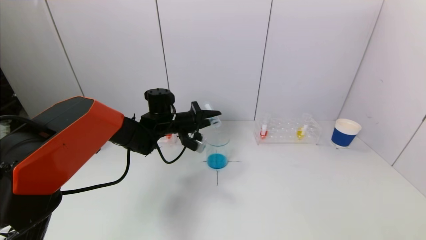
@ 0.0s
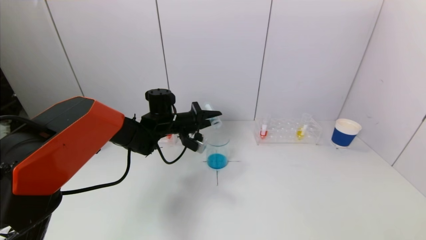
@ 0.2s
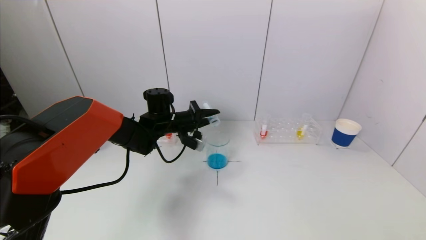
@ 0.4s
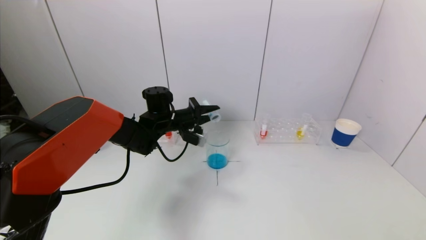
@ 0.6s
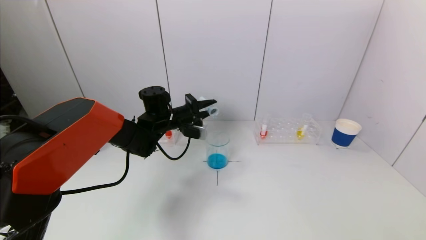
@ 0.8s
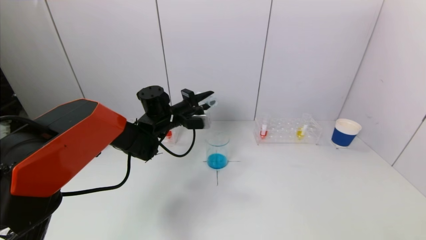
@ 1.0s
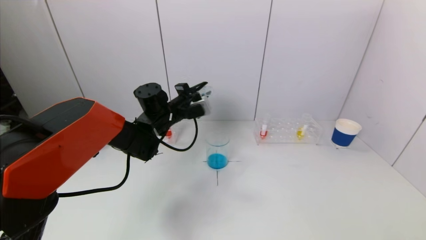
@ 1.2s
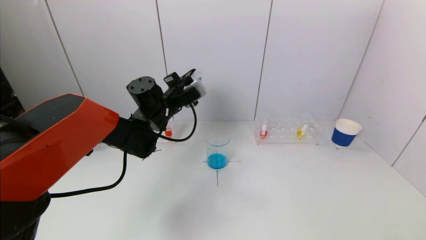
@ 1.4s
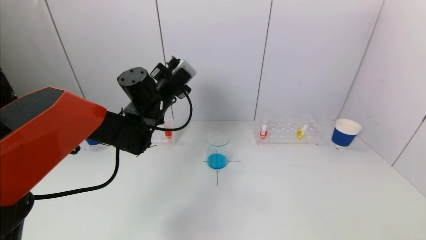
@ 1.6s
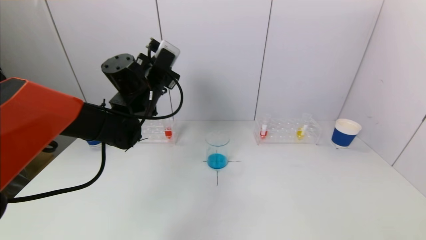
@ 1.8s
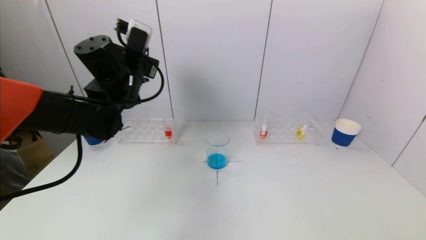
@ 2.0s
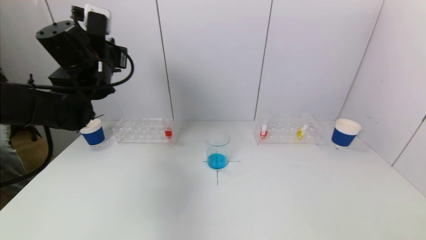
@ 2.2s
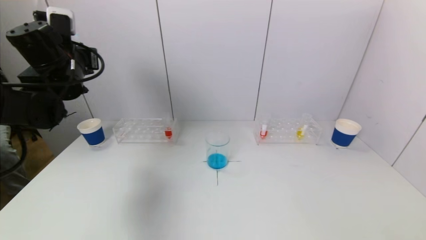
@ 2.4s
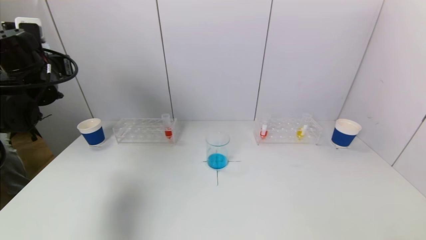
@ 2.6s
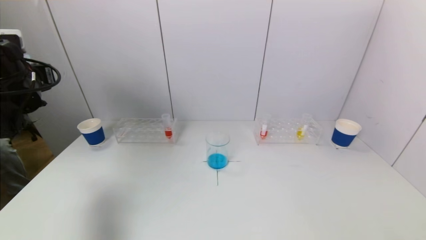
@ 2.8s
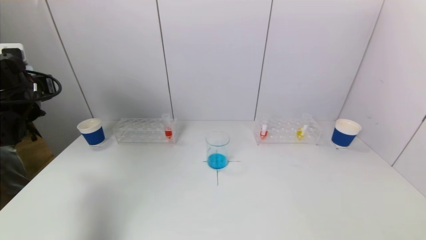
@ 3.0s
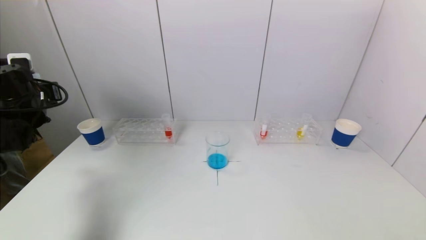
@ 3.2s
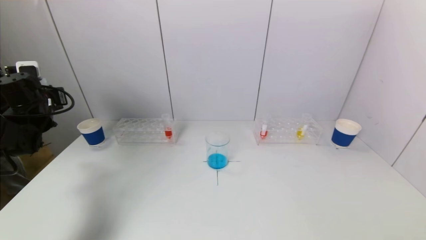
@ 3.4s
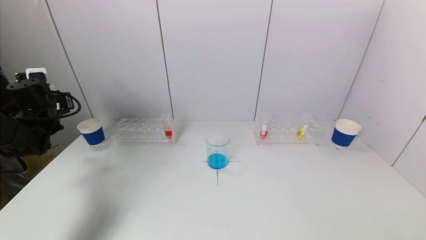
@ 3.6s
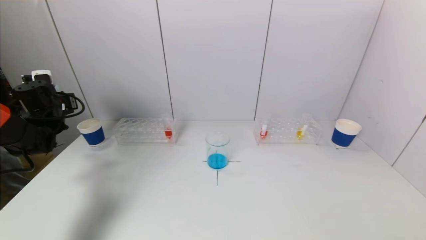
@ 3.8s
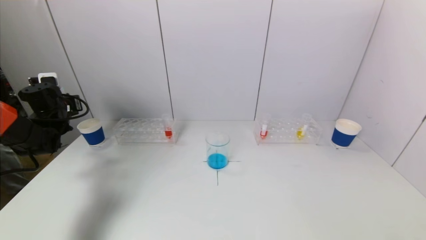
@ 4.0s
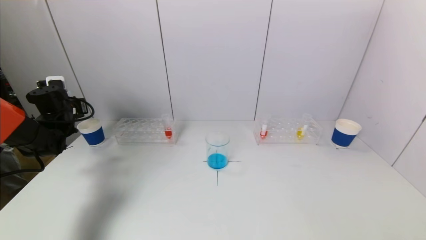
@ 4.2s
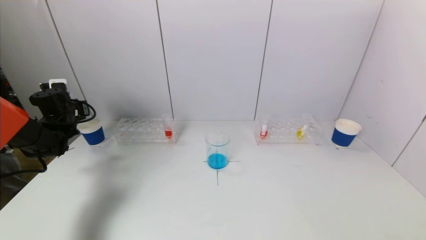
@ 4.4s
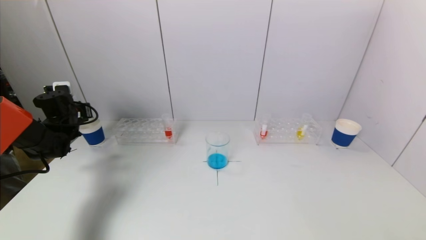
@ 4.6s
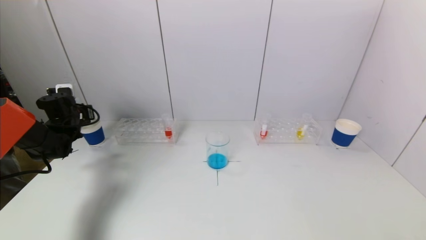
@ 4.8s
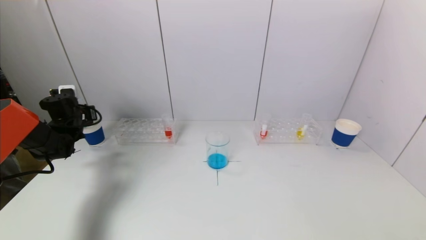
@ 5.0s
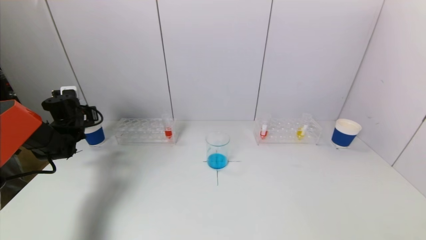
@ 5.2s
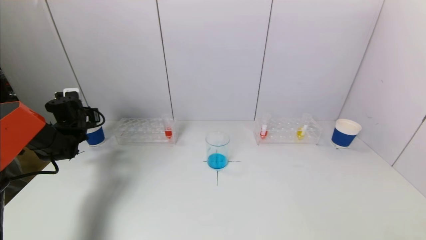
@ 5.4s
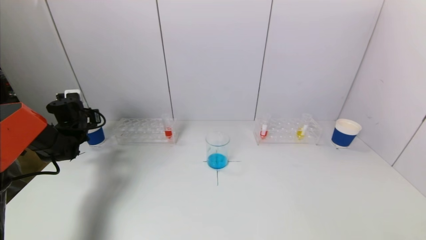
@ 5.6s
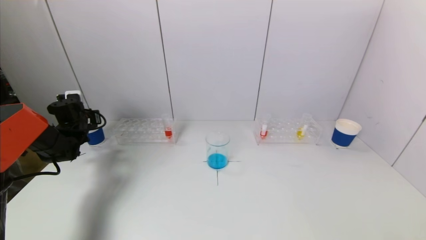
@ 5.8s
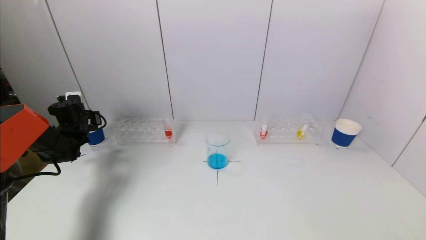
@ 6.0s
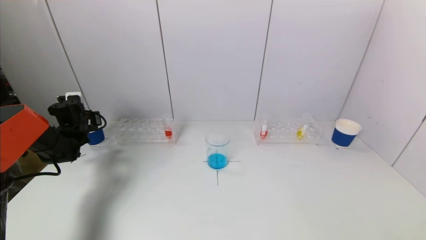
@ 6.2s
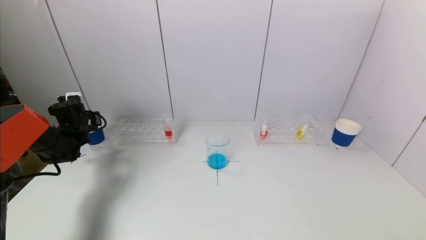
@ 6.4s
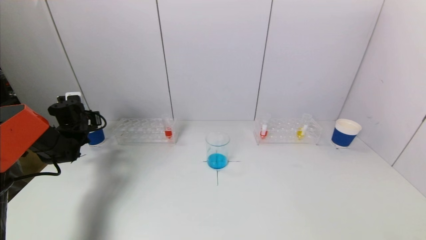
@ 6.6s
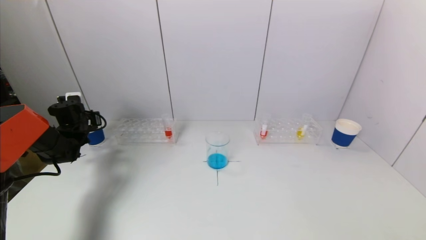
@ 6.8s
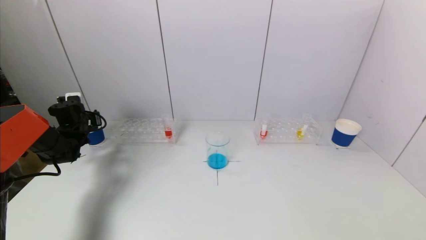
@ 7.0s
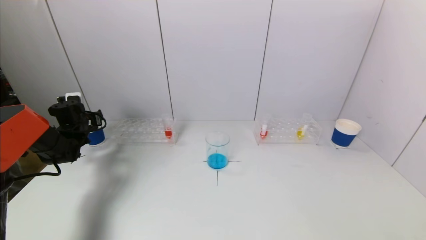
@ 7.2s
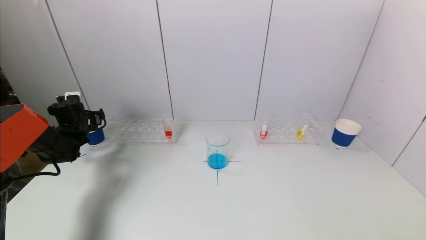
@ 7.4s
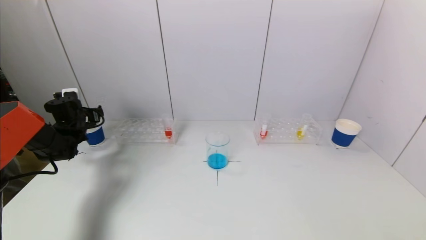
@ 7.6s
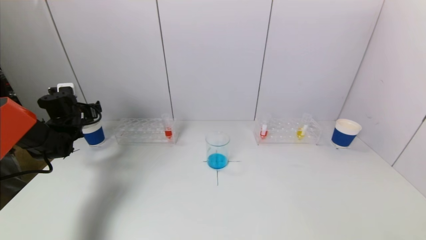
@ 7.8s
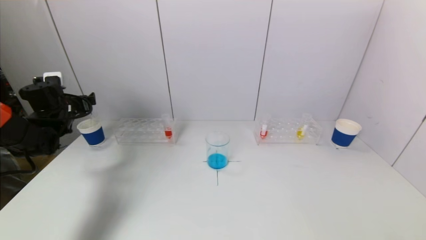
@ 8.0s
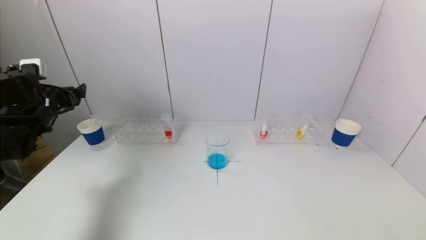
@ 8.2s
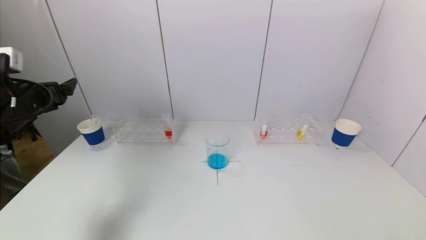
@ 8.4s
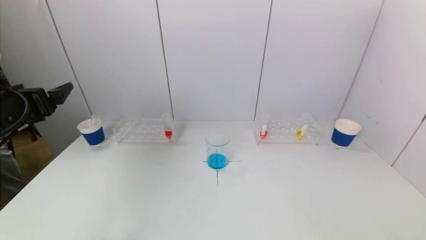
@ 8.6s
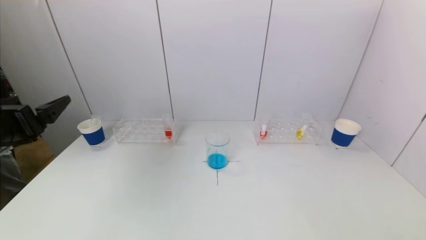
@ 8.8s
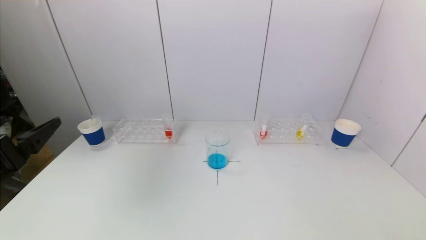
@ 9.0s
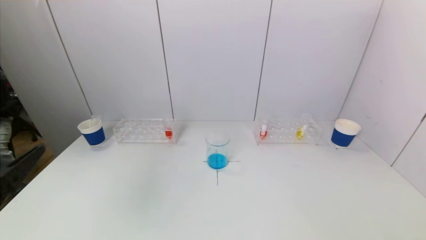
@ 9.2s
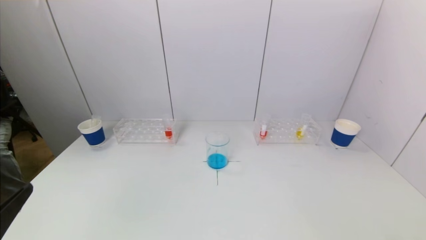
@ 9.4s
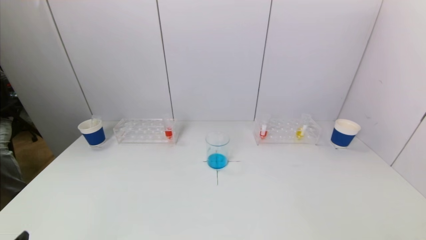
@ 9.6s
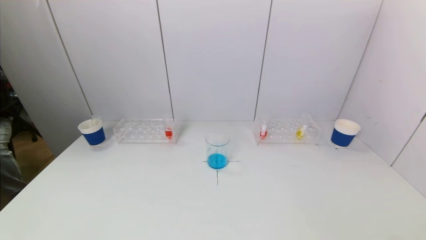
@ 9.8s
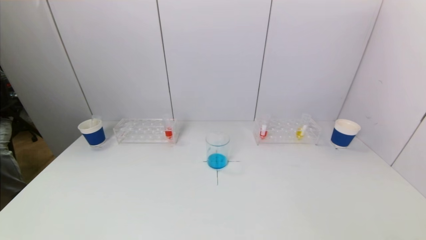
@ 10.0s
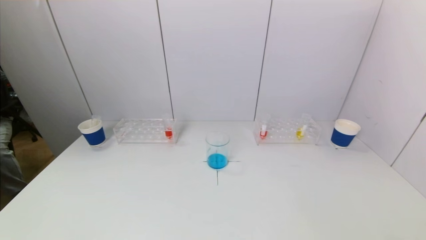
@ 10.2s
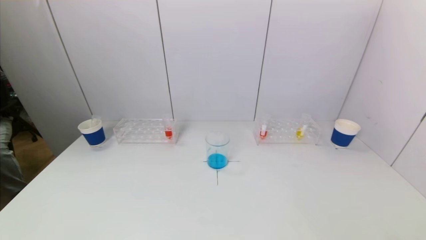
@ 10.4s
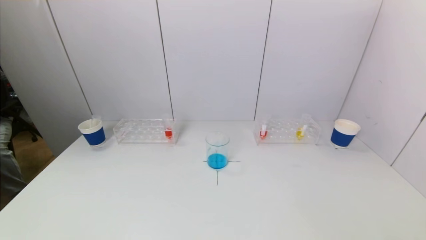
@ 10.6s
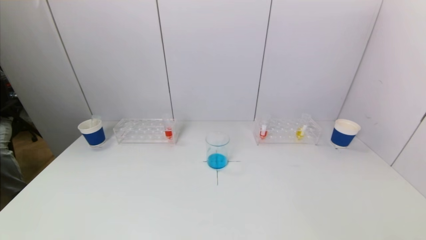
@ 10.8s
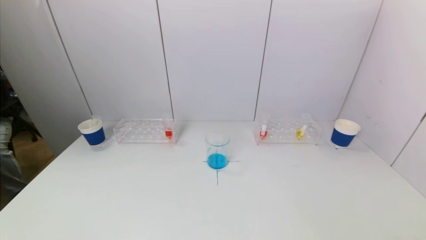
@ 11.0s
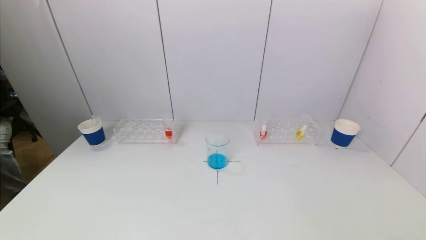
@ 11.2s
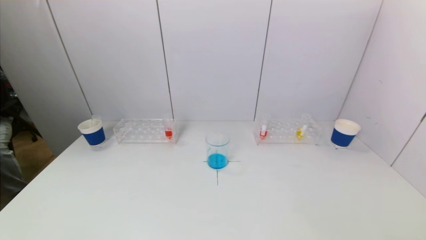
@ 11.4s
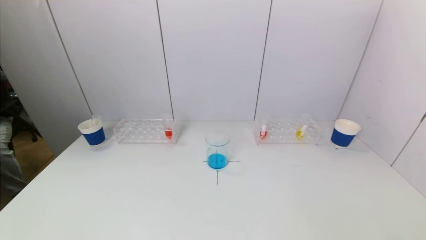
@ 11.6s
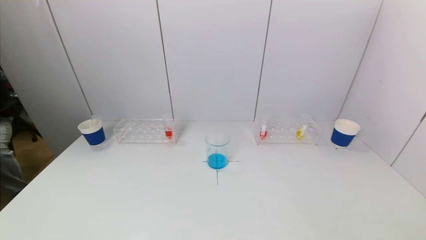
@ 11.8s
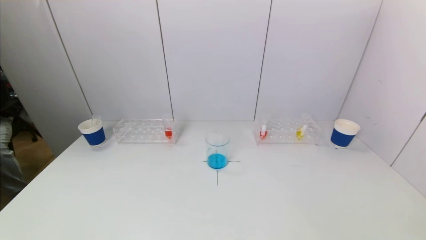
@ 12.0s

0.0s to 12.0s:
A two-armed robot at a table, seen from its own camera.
Task of the whole recording: pick up a test tube with pigment on left test tube rack and a test tube with pigment on right test tube rack by grippers and pour them into the beaker.
Step, 0.2s to 7.4s: Place the test tube into the paper cup with the left gripper.
0.0s to 1.6s: The left gripper goes roughly 10 cm upward.
1.6s to 3.0s: The left gripper heads to the left, covering approximately 25 cm.
3.0s to 4.4s: The left gripper moves downward and forward, approximately 15 cm.
4.4s to 6.0s: The left gripper moves about 5 cm.
6.0s to 7.6s: The left gripper opens its fingers.
7.6s to 9.0s: The left gripper is displaced backward by about 35 cm.
9.0s to 10.4s: The left gripper is displaced downward and backward by roughly 20 cm.

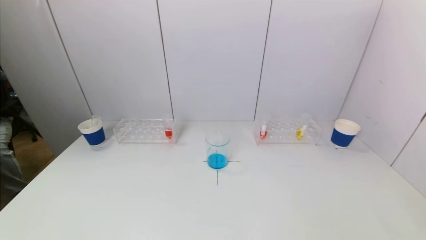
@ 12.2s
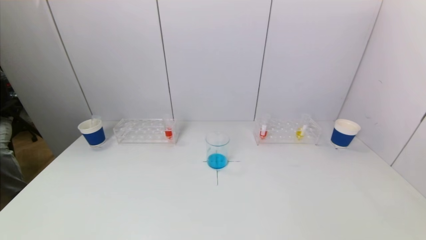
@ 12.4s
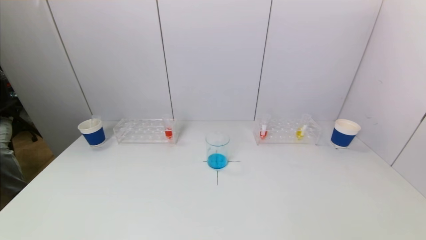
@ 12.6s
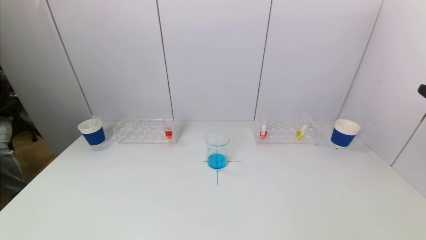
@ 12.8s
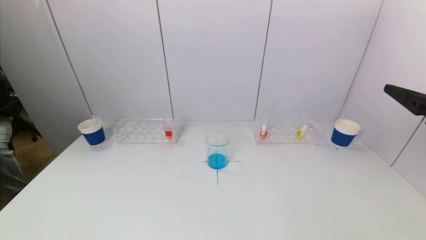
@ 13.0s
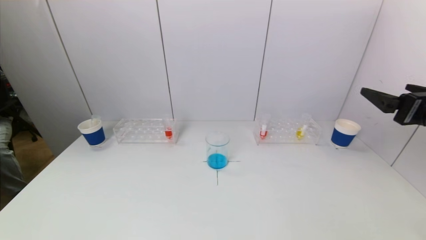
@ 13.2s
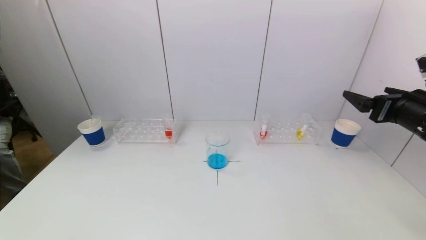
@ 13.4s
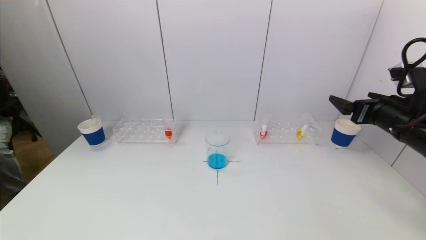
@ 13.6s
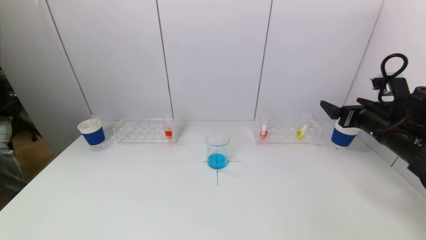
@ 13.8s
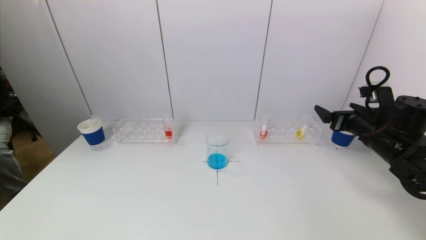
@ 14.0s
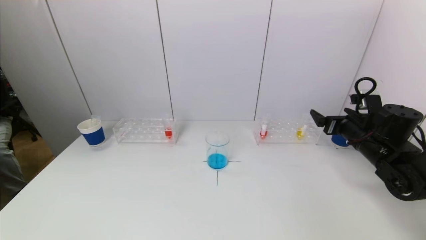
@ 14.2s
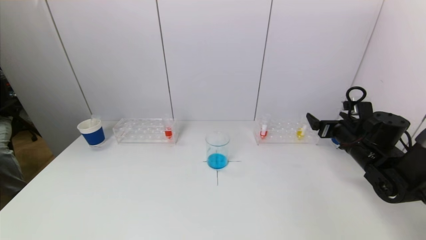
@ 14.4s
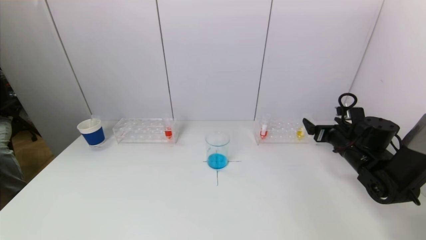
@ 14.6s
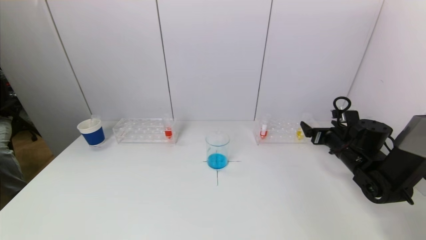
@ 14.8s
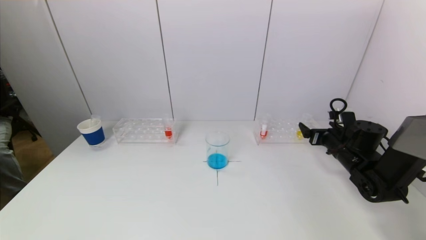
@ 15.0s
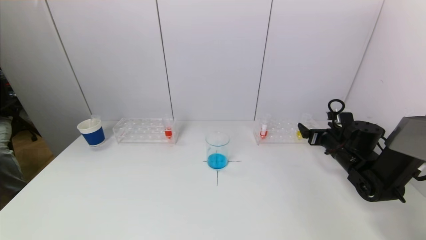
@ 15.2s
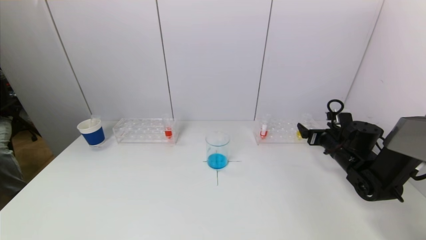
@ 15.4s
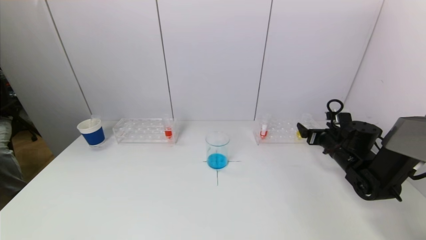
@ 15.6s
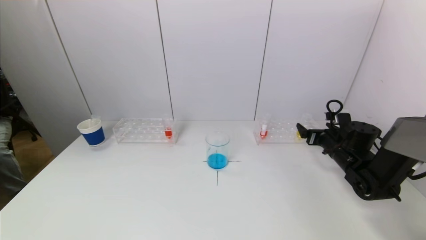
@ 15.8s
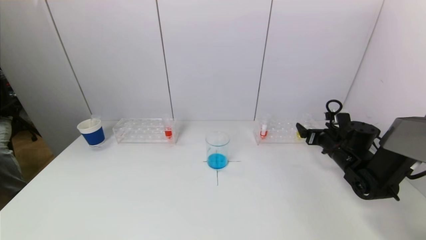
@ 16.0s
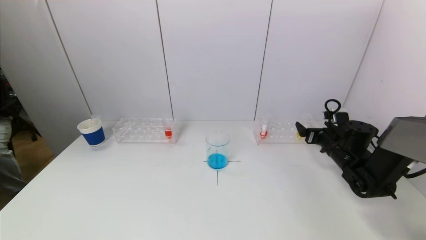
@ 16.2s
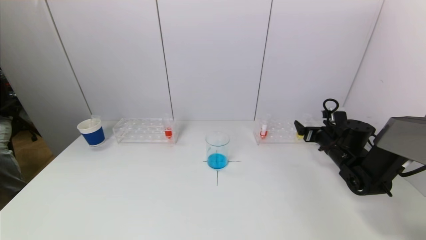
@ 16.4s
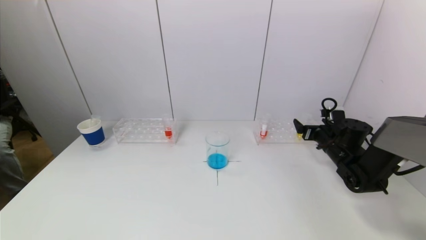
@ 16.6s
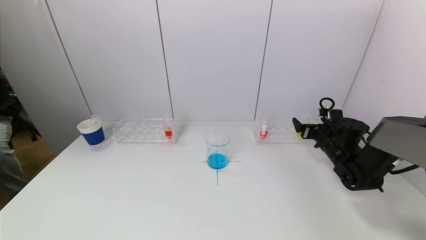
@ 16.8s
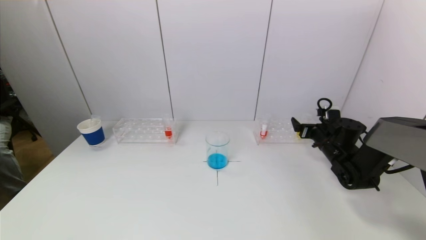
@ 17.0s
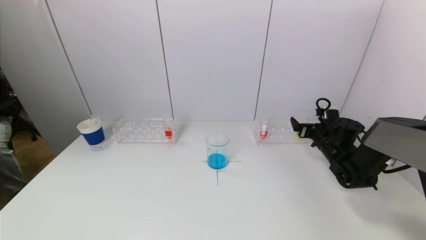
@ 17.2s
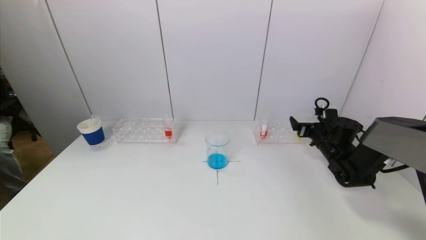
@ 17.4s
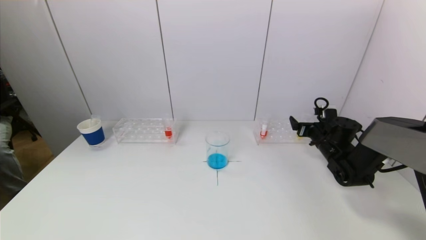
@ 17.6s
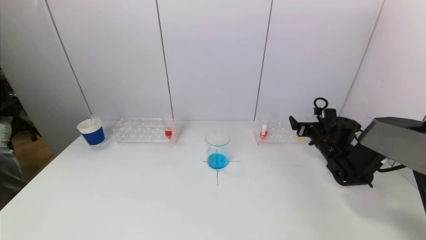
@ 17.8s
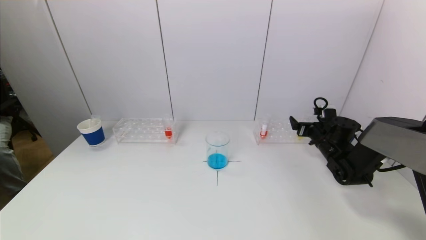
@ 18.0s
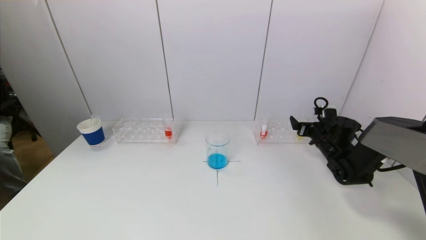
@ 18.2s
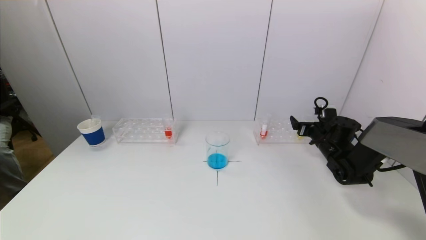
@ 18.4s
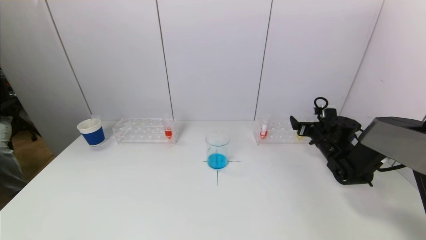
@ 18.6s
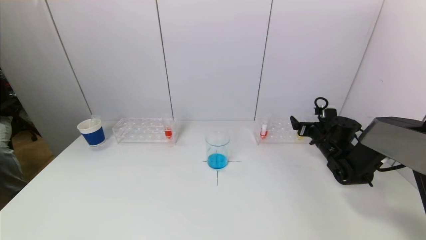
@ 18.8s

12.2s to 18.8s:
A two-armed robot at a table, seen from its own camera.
Task of the whole recording: pick up a test tube with pigment on left test tube rack and a test tube with pigment on right test tube rack by grippers and pour them into the beaker.
12.2s to 13.8s: The right gripper goes about 30 cm forward.
13.8s to 15.4s: The right gripper shifts approximately 15 cm downward and forward.
15.4s to 17.2s: The grippers move only a little.
17.2s to 18.8s: Both grippers stay about where they are.
